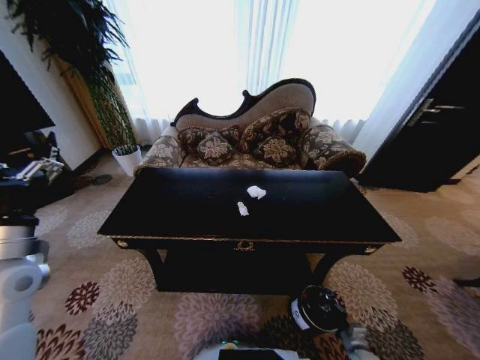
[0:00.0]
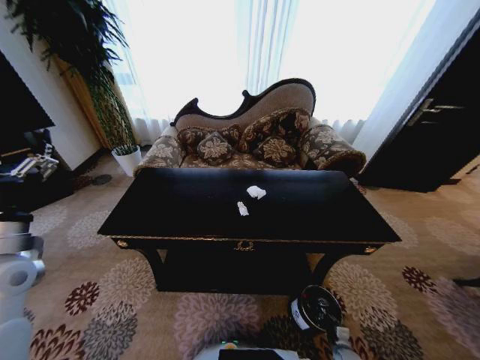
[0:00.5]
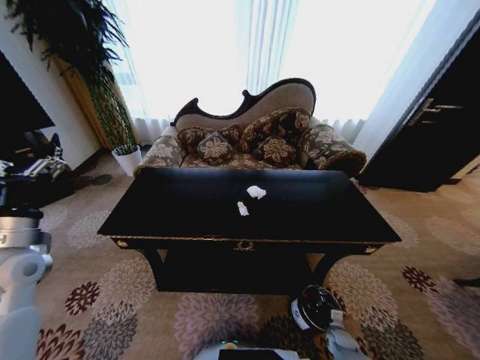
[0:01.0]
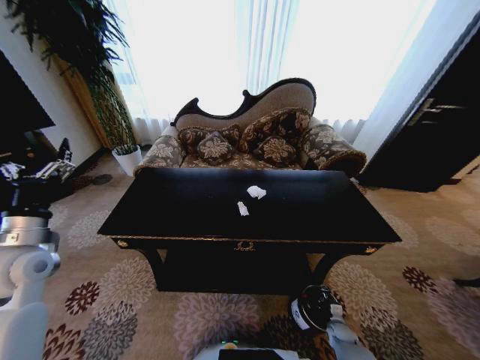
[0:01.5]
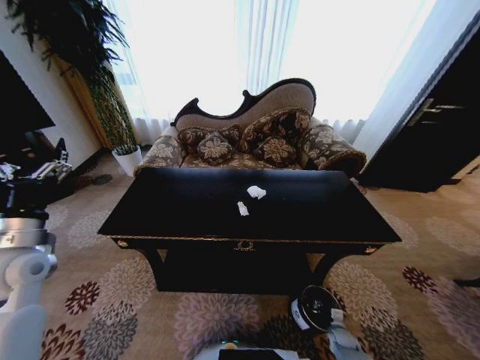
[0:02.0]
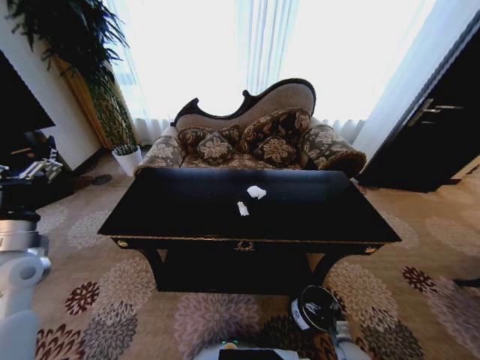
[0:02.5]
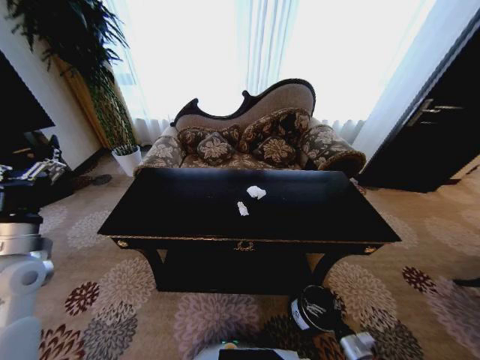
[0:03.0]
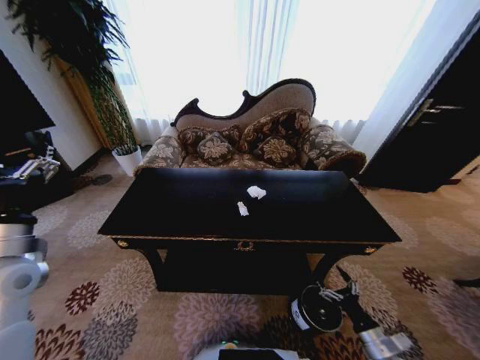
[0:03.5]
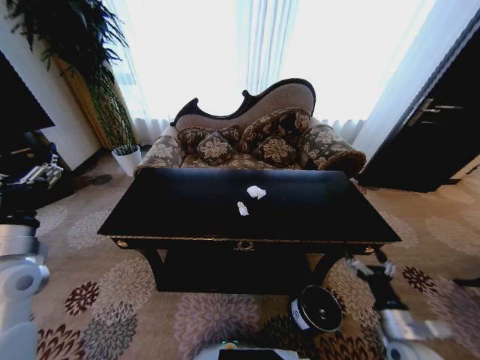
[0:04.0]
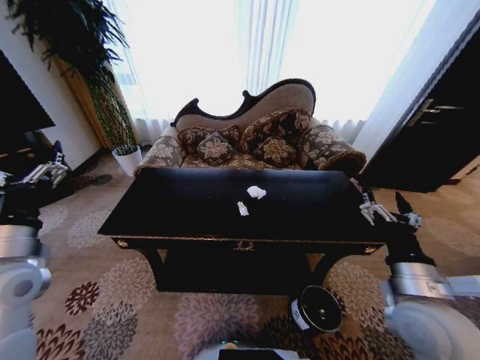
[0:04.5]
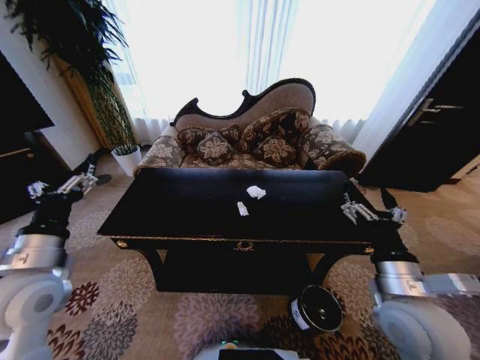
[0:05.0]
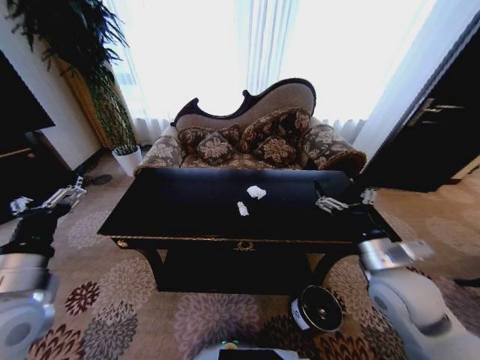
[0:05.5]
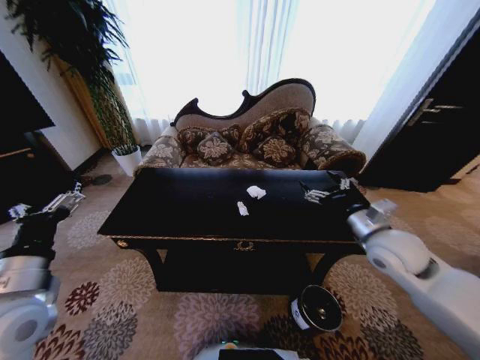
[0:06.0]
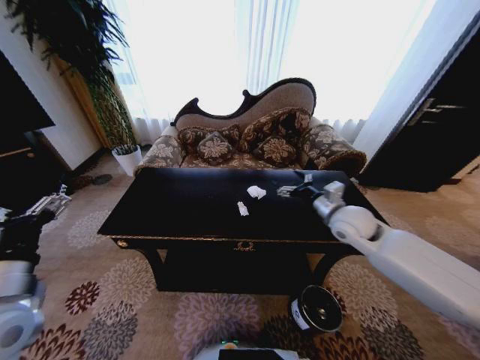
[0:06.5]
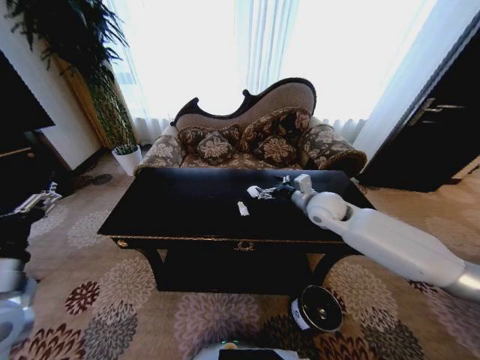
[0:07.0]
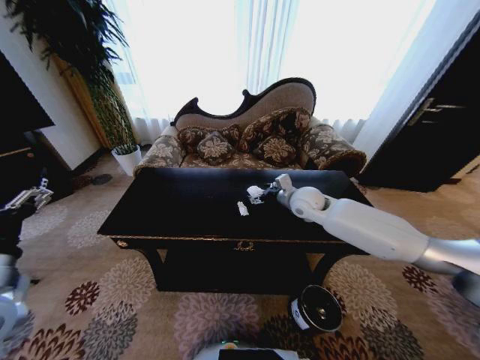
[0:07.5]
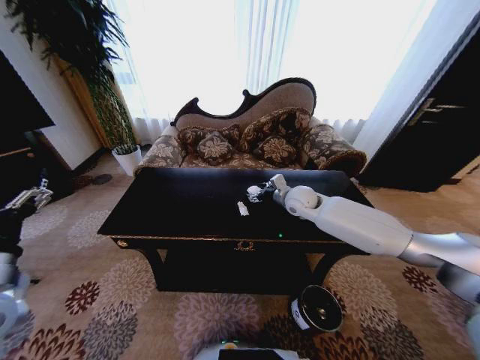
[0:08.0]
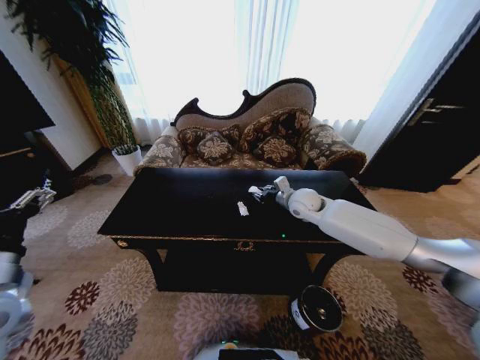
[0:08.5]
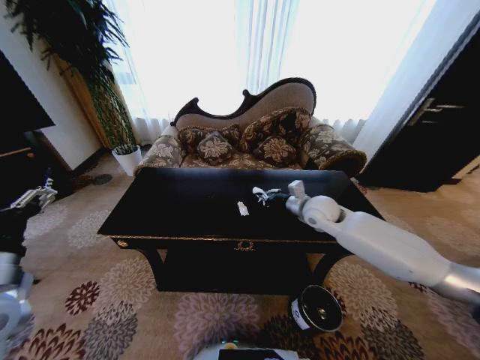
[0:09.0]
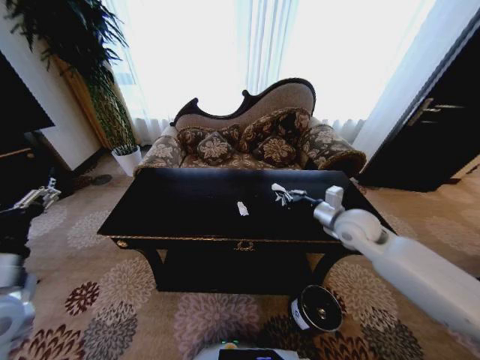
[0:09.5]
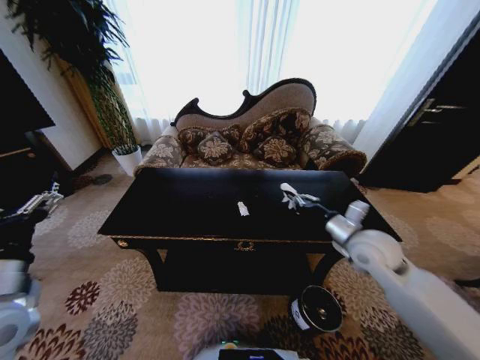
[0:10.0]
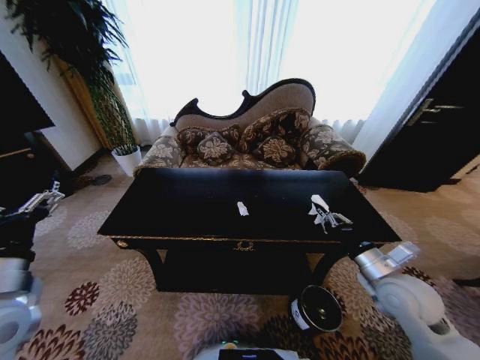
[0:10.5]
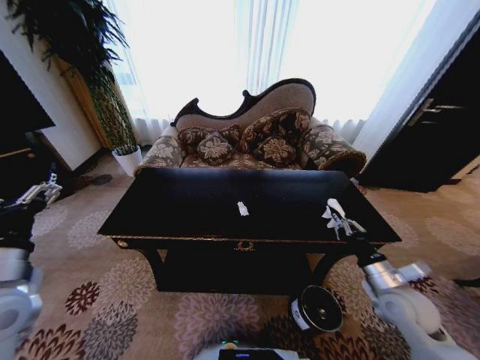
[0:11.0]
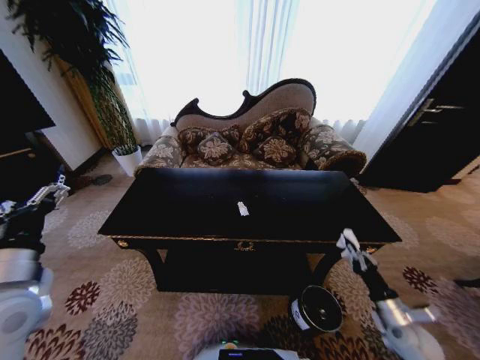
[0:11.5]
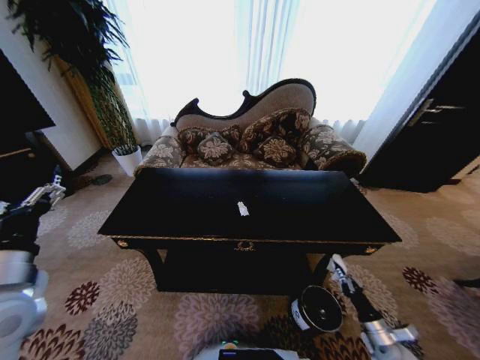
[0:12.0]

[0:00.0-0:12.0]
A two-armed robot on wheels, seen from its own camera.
Task of the whole recording: Move to the front of the table and place the trash on the table into the trash bin.
0:00.0 to 0:02.0: The right gripper travels forward and downward by approximately 10 cm, and opens up.
0:02.0 to 0:04.0: The right gripper travels upward by about 30 cm, and opens up.
0:04.0 to 0:06.0: The right gripper heads upward and forward, covering roughly 25 cm, while the left gripper travels backward and to the right by approximately 10 cm.
0:06.0 to 0:08.0: The right gripper travels forward and to the left by approximately 25 cm. Meanwhile the left gripper shifts roughly 5 cm to the left.
0:08.0 to 0:10.0: The right gripper heads backward and to the right, covering about 20 cm, and closes up.
0:10.0 to 0:12.0: The right gripper heads downward, backward and to the right, covering roughly 40 cm.

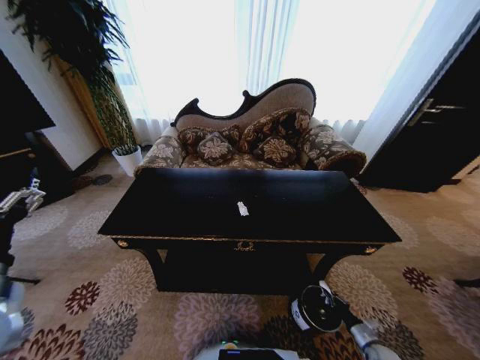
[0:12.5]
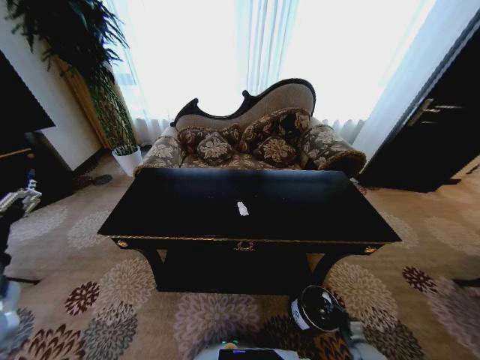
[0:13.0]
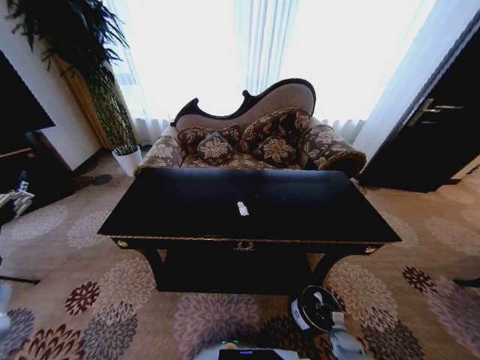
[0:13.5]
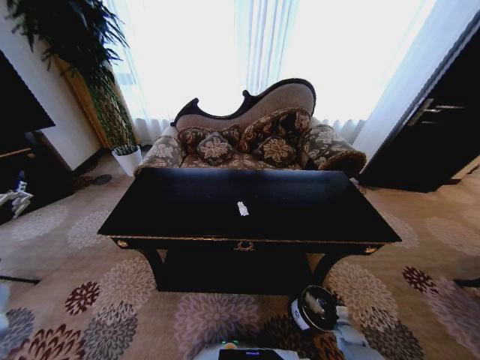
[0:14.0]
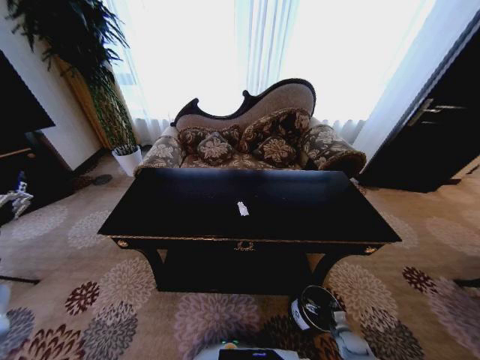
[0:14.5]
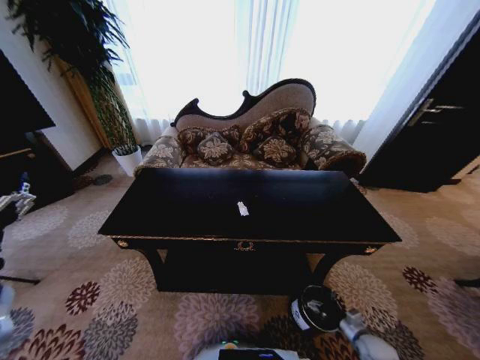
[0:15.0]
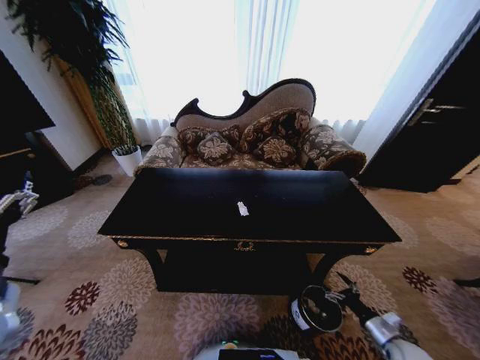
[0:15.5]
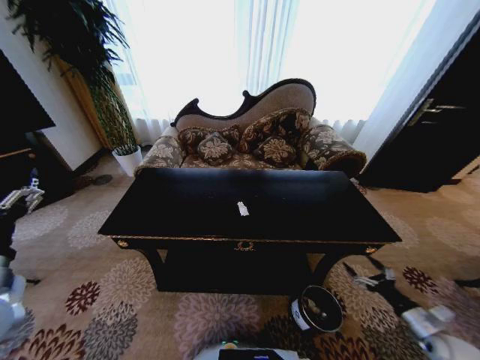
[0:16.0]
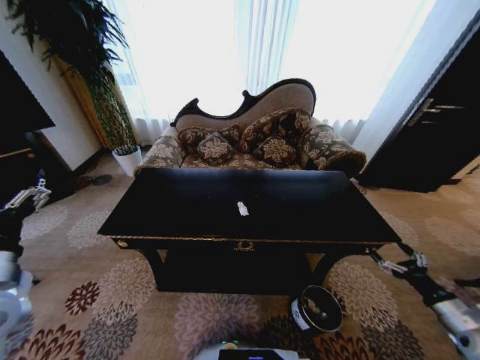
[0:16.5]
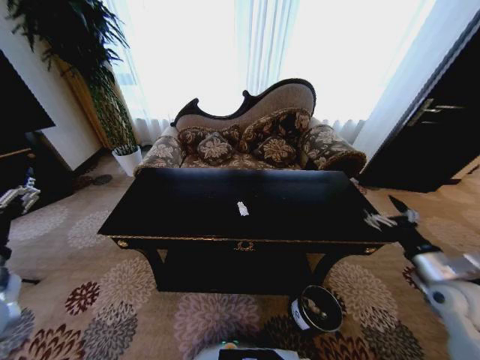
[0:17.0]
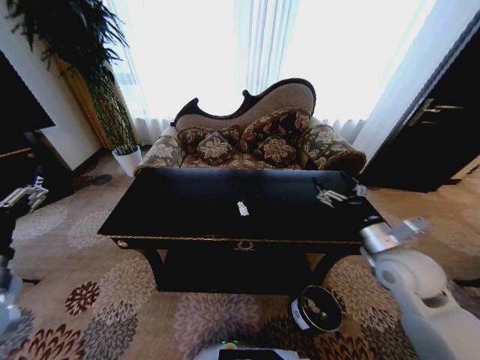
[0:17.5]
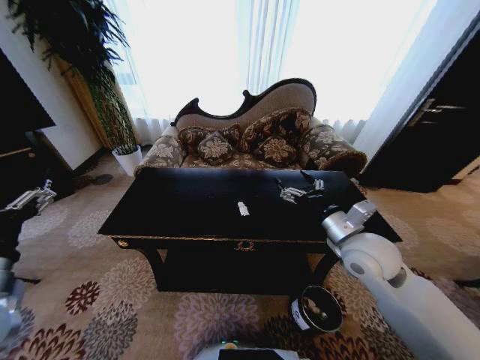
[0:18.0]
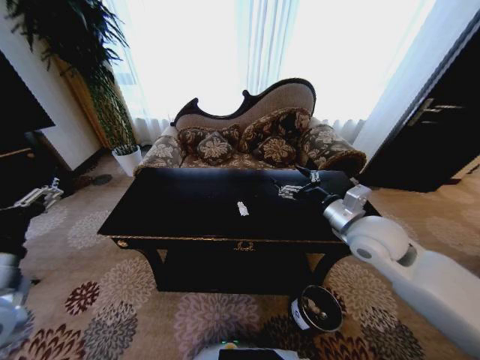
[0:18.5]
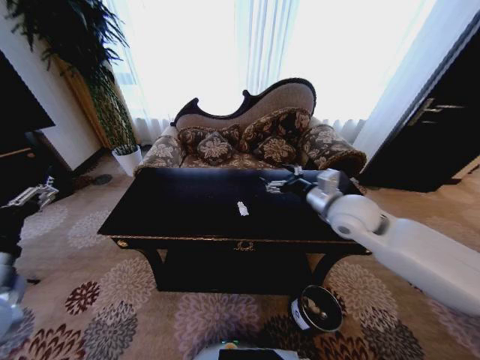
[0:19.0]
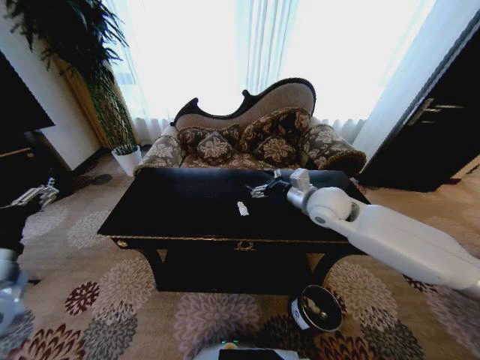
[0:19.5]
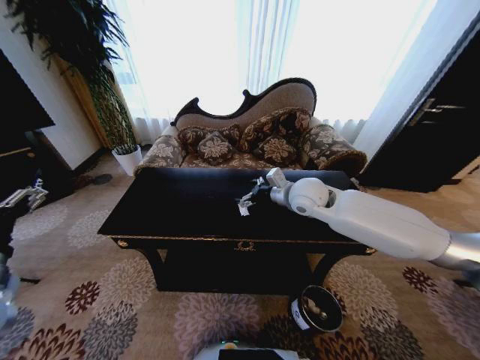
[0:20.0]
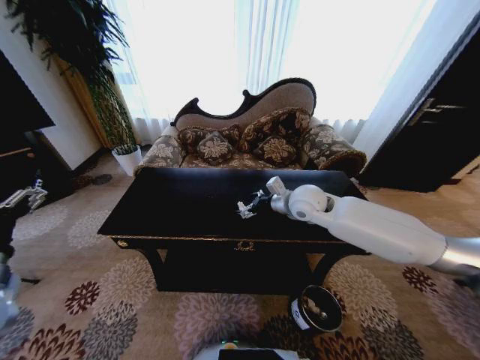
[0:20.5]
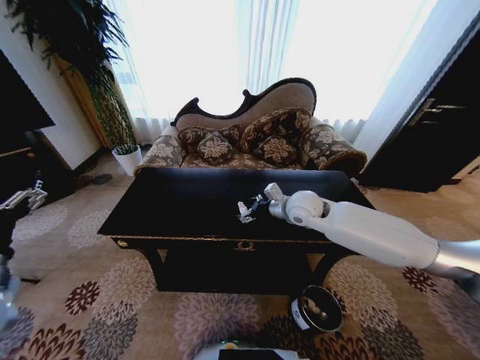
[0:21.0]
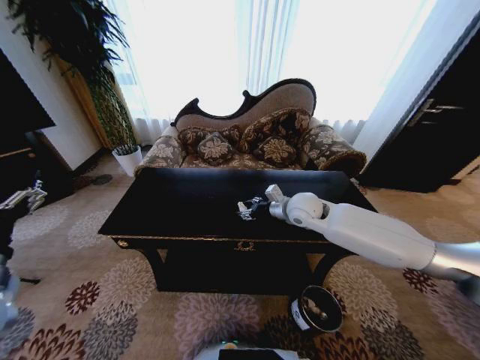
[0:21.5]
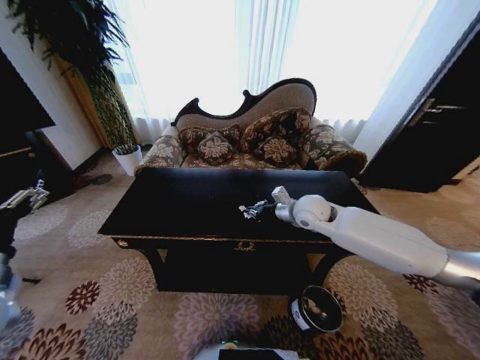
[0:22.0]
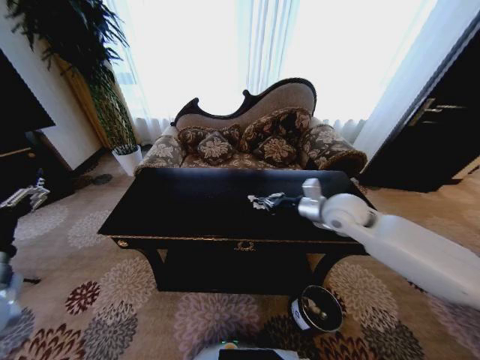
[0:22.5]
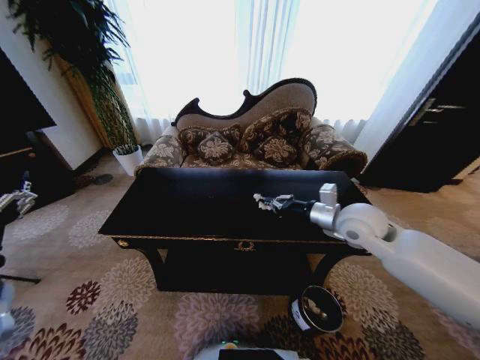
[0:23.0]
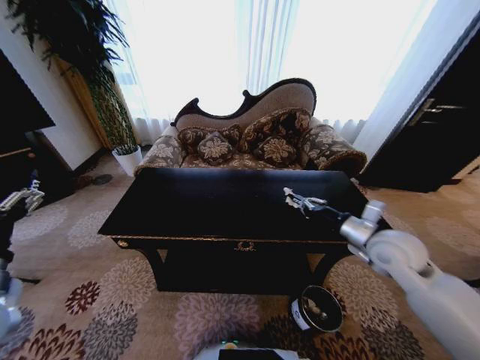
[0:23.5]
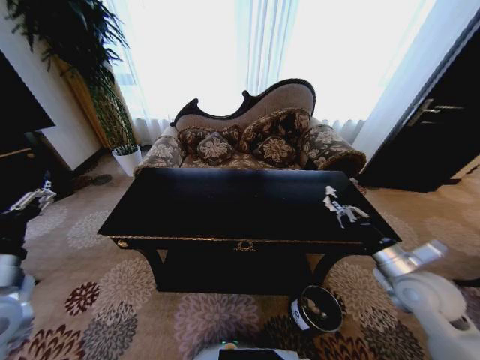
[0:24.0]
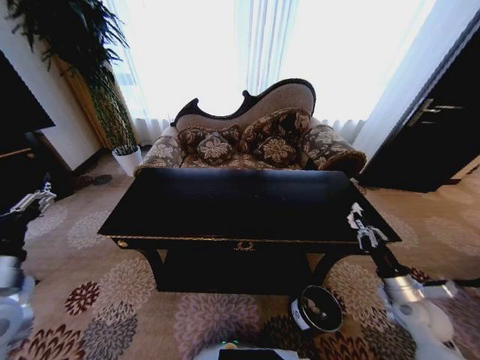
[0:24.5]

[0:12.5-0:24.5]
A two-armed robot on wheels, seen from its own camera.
Task of the whole recording: Move to the front of the table and place the trash on the table into the trash bin.
0:12.5 to 0:14.5: The right gripper heads to the left, covering roughly 5 cm, and opens up.
0:14.5 to 0:16.5: The right gripper travels upward by some 30 cm.
0:16.5 to 0:18.5: The right gripper travels to the left, upward and forward by about 35 cm.
0:18.5 to 0:20.5: The right gripper goes about 15 cm forward and to the left.
0:20.5 to 0:22.5: The right gripper is displaced to the right by approximately 10 cm, and closes its fingers.
0:22.5 to 0:24.5: The right gripper moves downward, to the right and backward, approximately 35 cm.

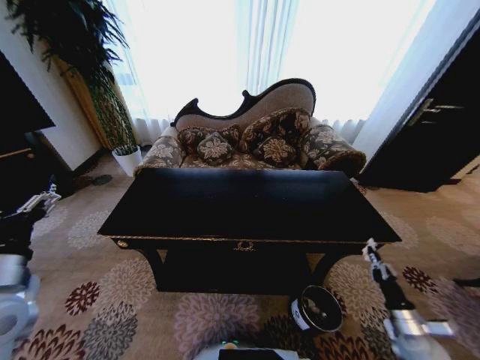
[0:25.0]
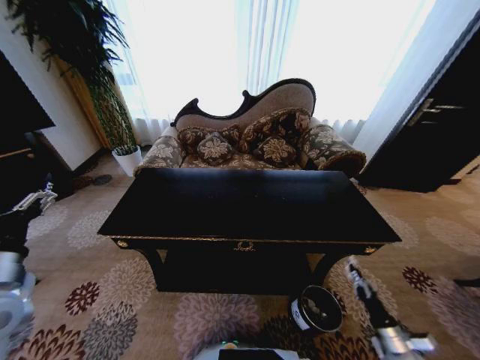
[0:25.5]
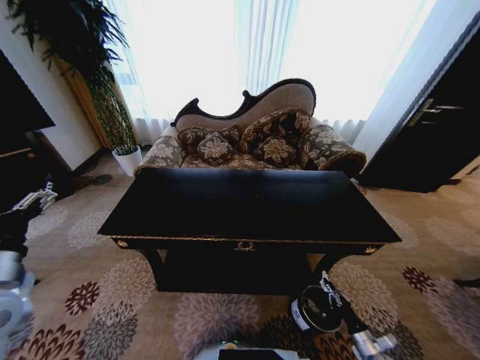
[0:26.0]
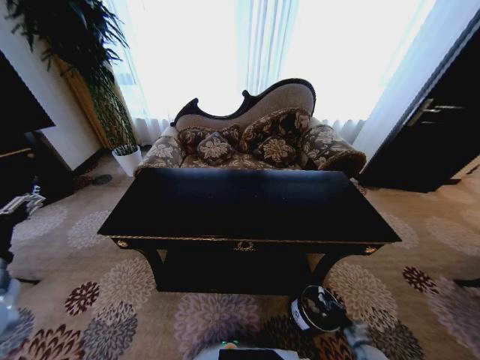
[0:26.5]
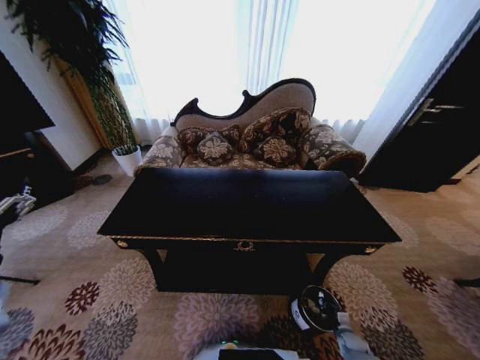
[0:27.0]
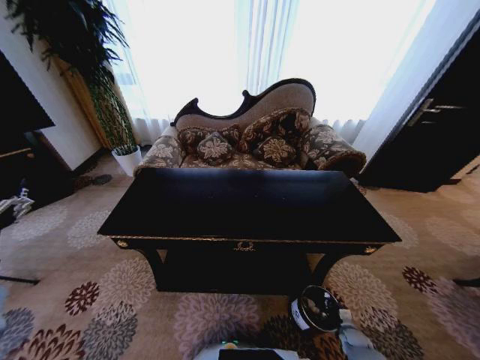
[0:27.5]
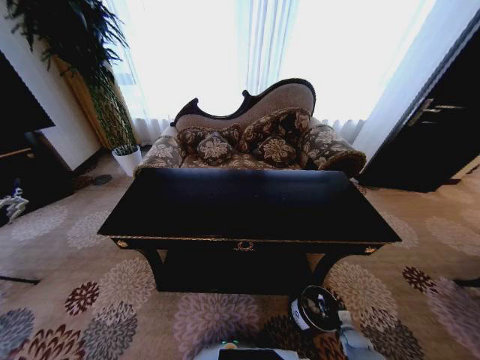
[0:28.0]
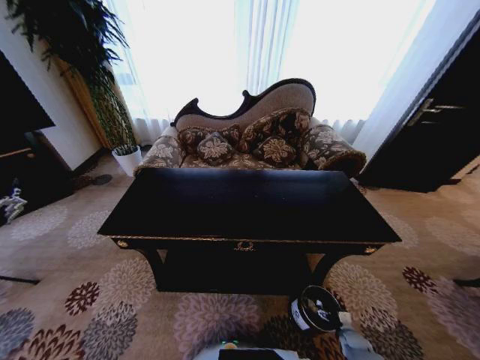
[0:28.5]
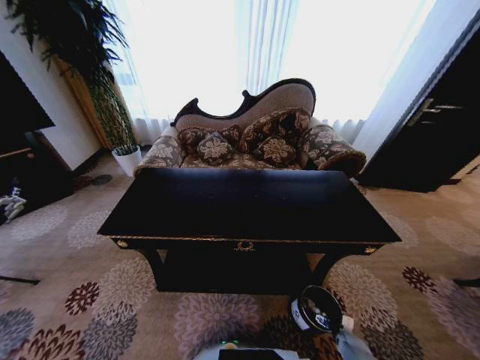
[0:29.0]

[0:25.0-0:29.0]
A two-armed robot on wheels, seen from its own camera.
Task of the whole recording: Move to the front of the table and place the trash on the table into the trash bin.
0:25.0 to 0:27.0: The right gripper is displaced downward by about 20 cm.
